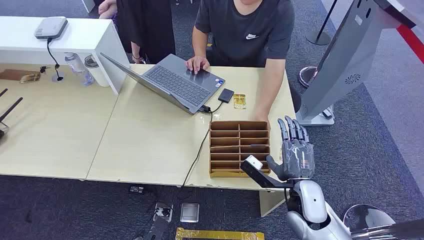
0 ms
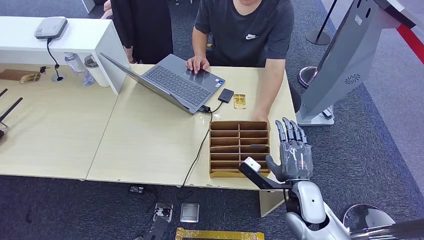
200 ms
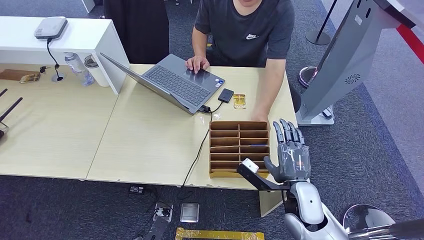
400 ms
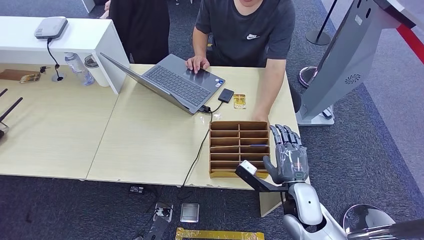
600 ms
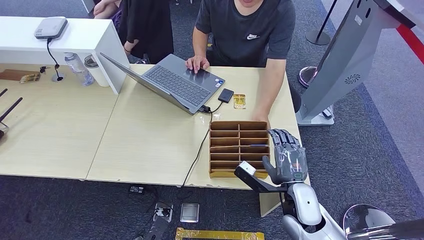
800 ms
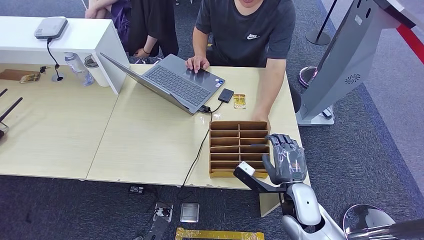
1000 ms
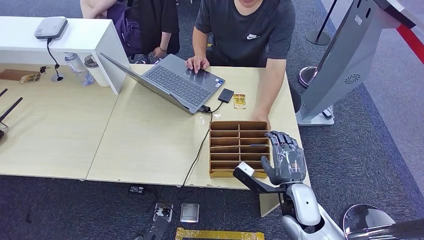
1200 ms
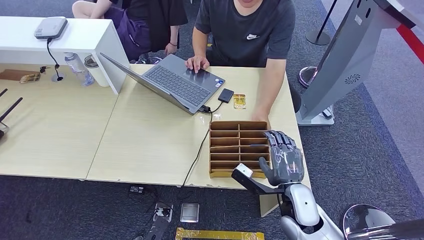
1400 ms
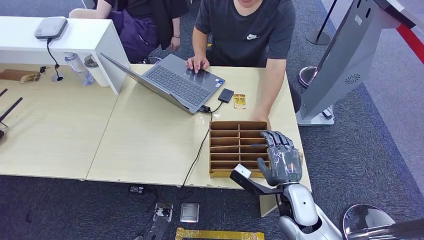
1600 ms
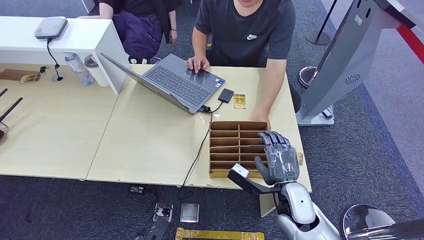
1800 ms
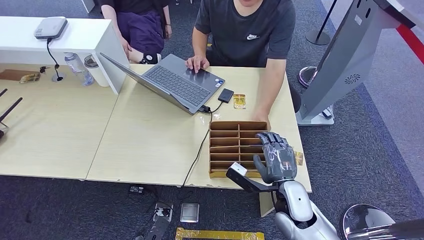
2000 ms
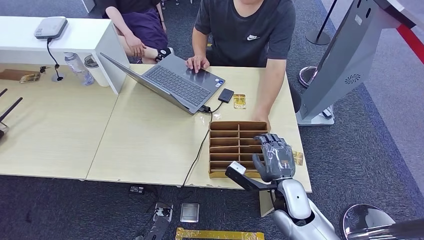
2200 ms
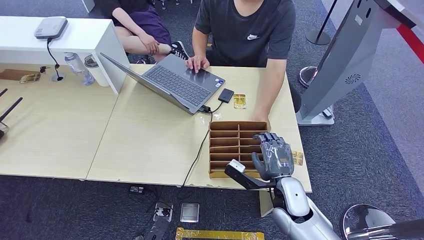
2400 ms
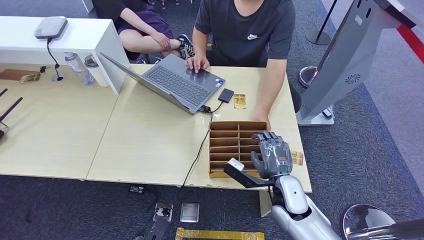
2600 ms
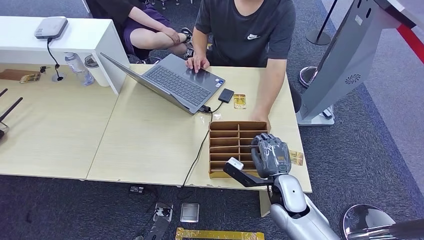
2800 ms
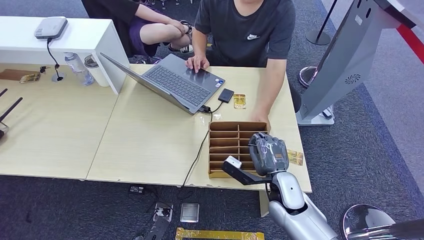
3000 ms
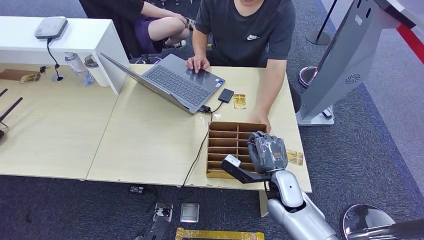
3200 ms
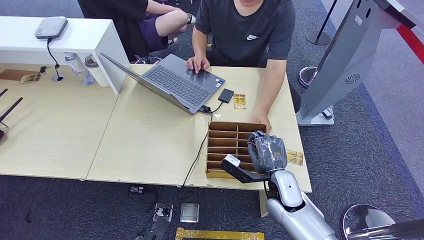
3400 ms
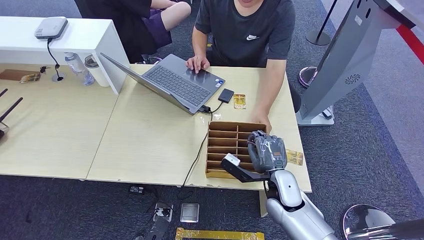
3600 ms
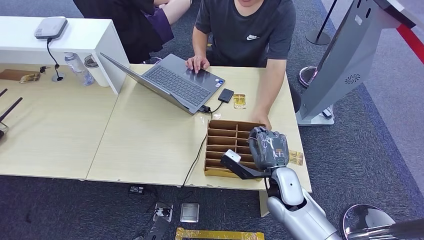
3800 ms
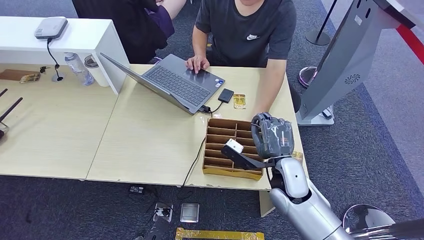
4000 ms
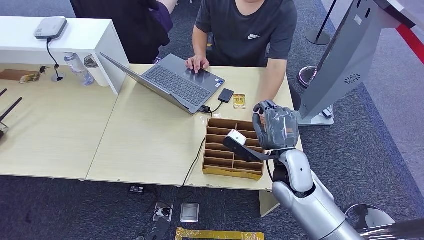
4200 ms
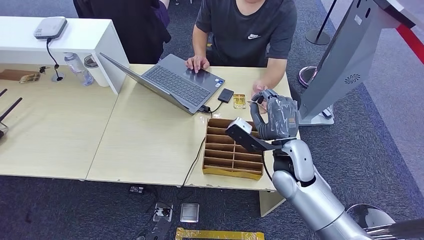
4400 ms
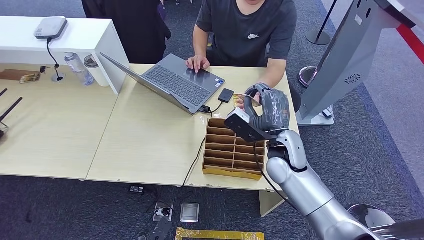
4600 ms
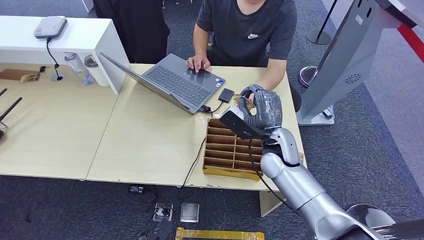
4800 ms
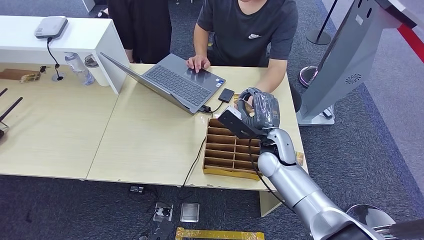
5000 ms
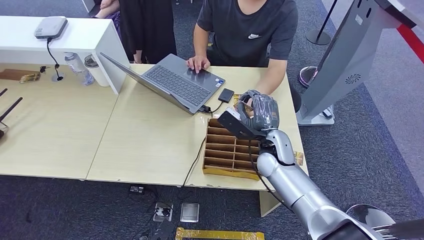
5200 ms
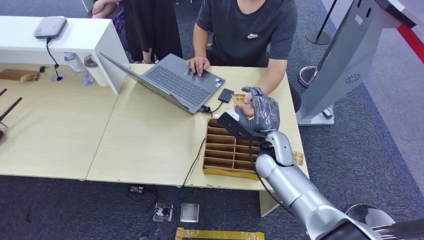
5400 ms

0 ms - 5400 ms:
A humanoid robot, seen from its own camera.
Step, 0 ms - 3800 ms: Pick up the room card from the card holder.
Step, 4000 ms - 5400 ms: Hand the room card to the target.
1400 ms - 2800 ms: There are only small adjustments of the hands.
2800 ms - 4000 ms: The right hand heads upward, covering about 5 cm.
4000 ms - 5400 ms: The right hand shifts roughly 5 cm forward.

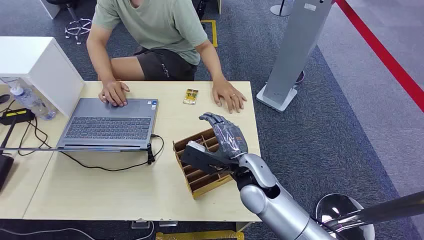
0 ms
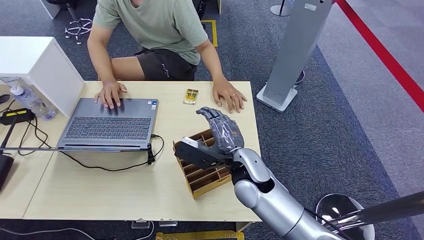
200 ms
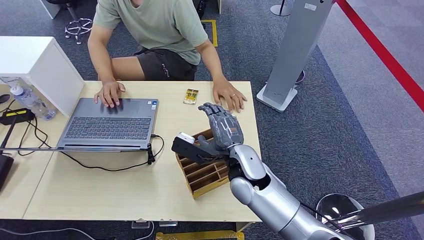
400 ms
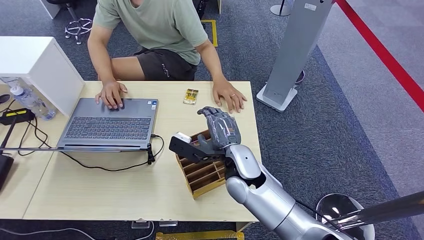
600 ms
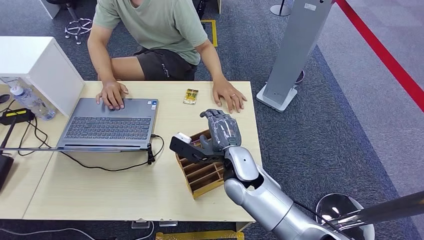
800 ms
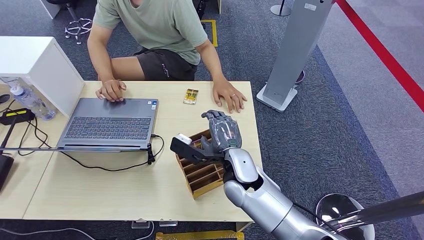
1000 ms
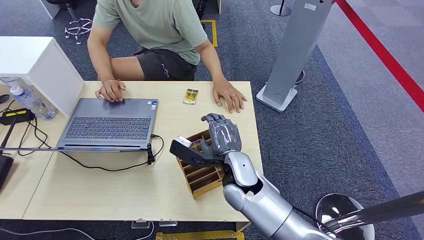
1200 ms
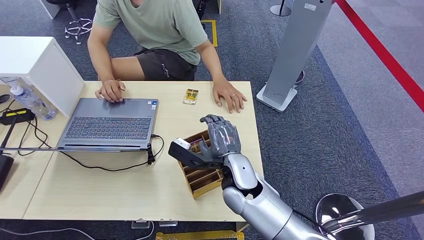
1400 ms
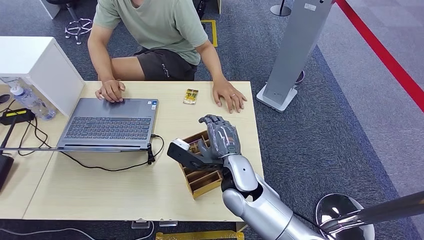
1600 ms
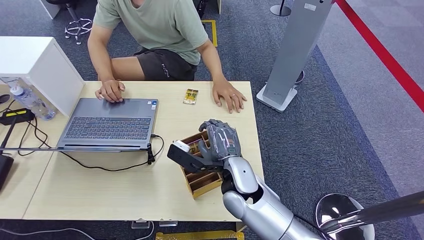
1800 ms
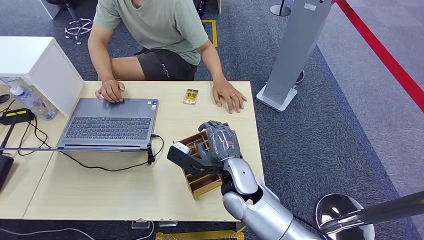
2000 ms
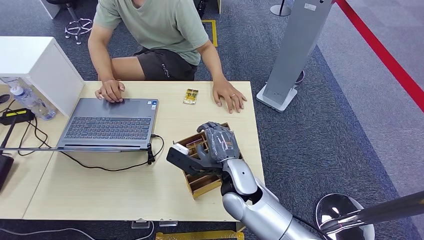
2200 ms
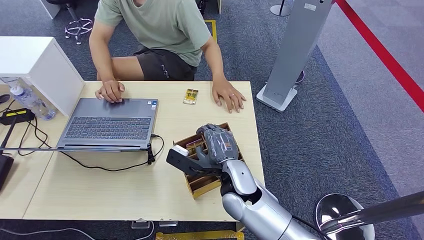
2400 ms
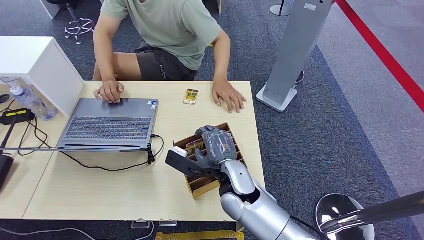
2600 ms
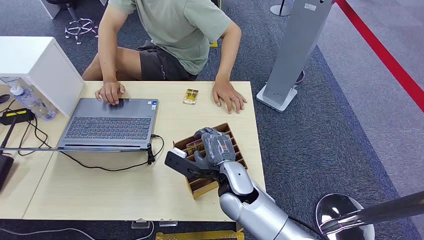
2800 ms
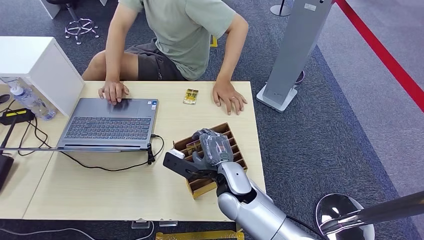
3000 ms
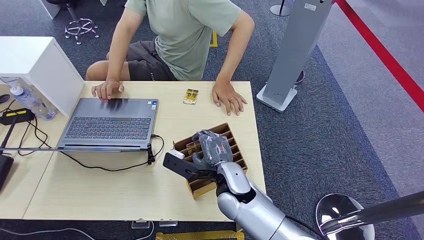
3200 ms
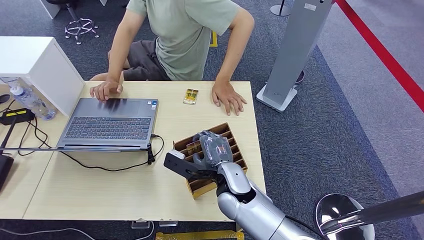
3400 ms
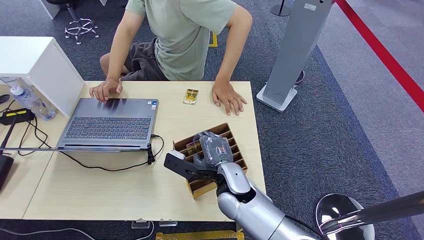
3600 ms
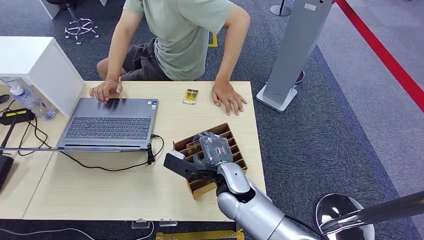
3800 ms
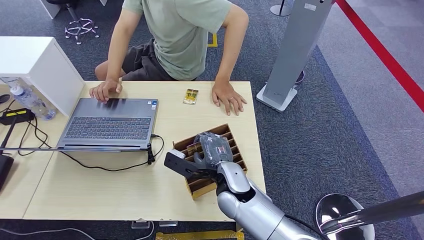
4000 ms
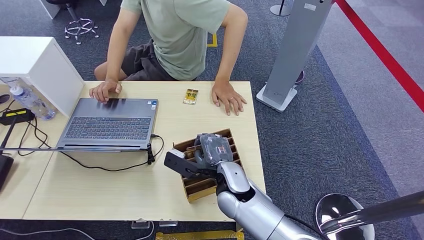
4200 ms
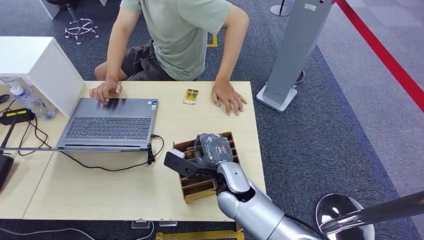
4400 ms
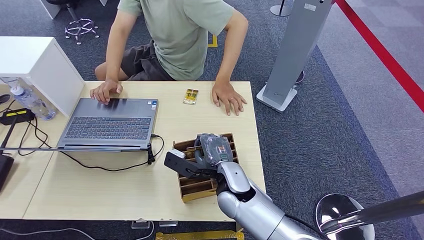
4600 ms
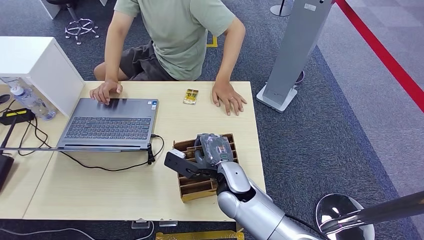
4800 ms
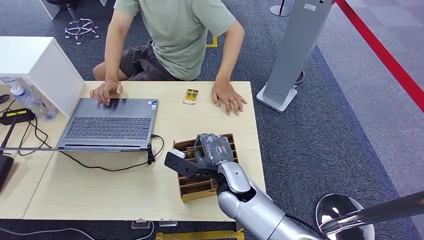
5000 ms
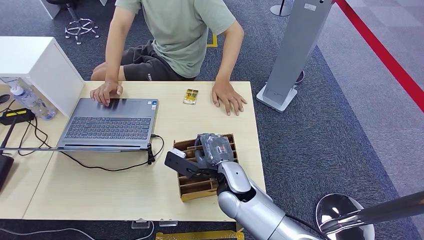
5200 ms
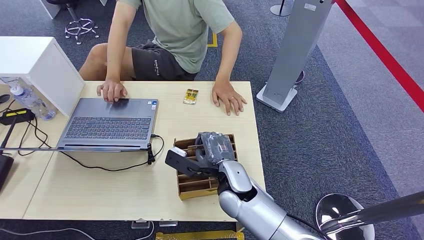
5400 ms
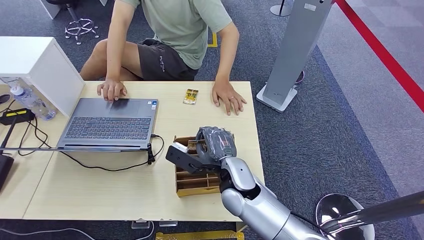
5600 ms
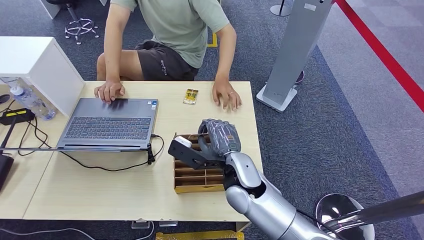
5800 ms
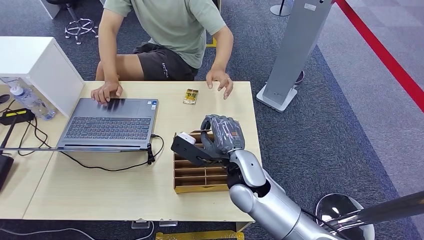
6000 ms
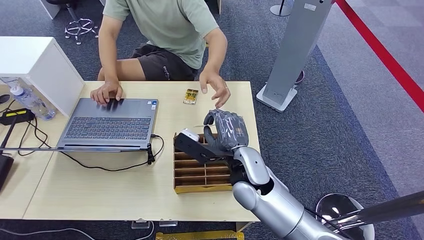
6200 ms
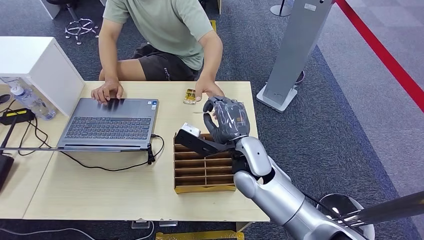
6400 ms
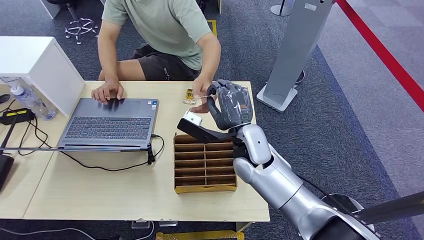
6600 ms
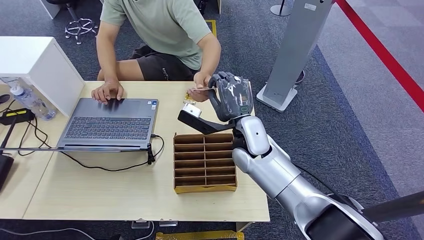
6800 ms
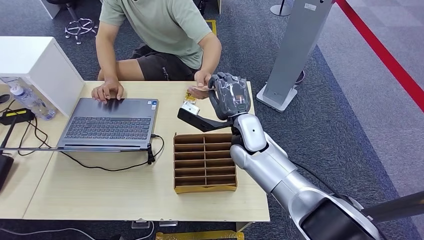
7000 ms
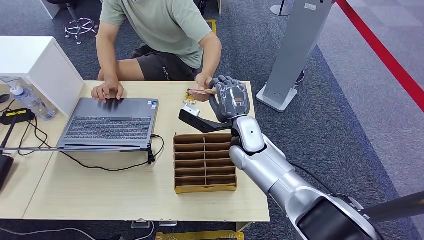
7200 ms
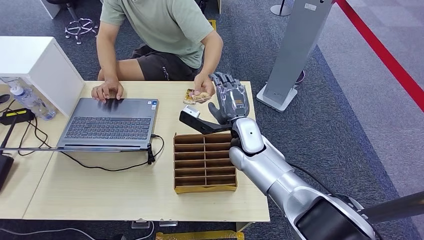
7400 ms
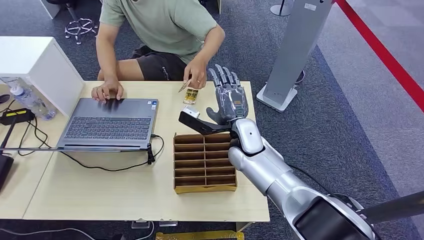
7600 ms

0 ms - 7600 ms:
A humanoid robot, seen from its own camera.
Step, 0 ms - 6400 ms: Pick up the room card from the card holder.
Step, 6600 ms - 7400 ms: Hand the room card to the target.
1600 ms - 3000 ms: There are only small adjustments of the hands.
3000 ms - 4600 ms: Both hands stay about where they are.
4600 ms - 6000 ms: The right hand moves upward, approximately 5 cm.
6000 ms - 7600 ms: The right hand moves forward, about 10 cm.

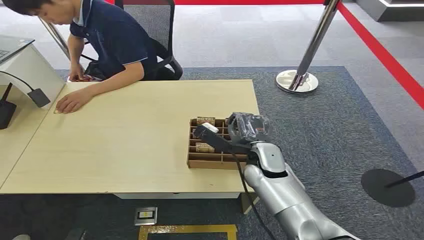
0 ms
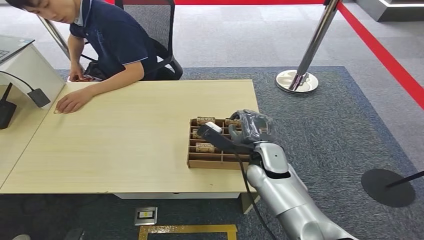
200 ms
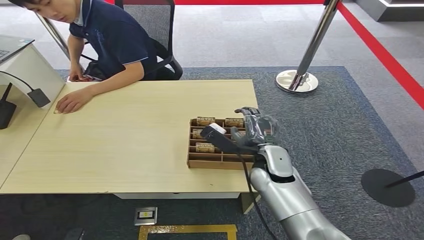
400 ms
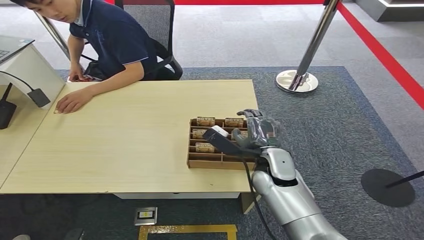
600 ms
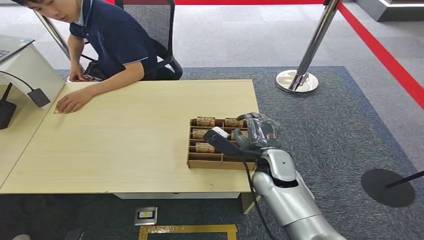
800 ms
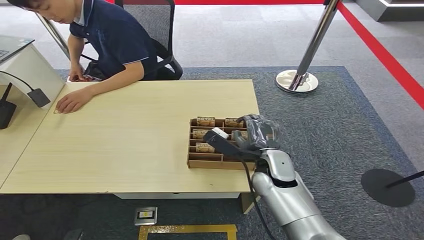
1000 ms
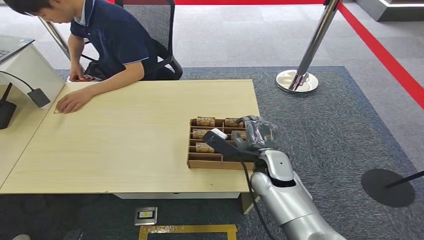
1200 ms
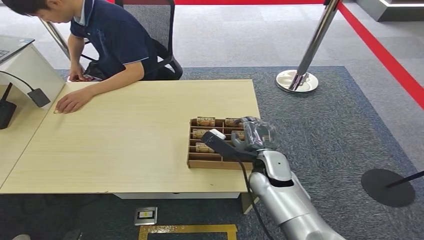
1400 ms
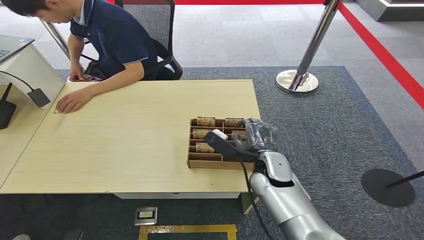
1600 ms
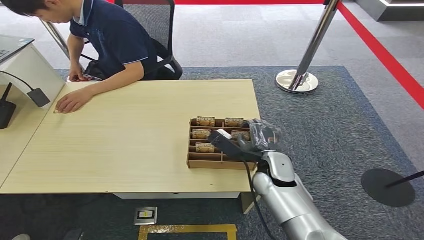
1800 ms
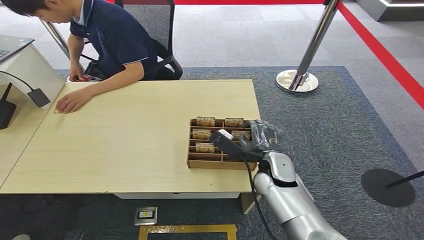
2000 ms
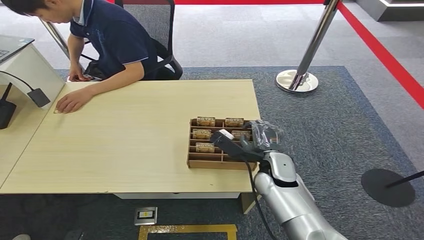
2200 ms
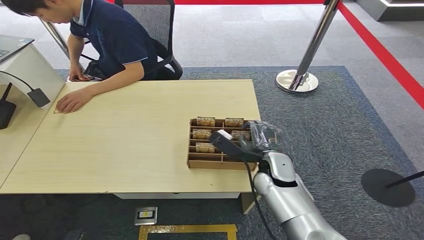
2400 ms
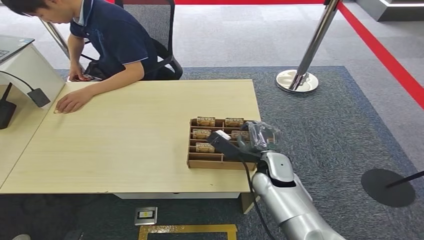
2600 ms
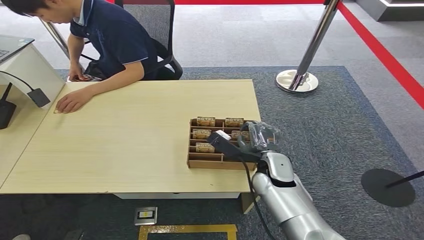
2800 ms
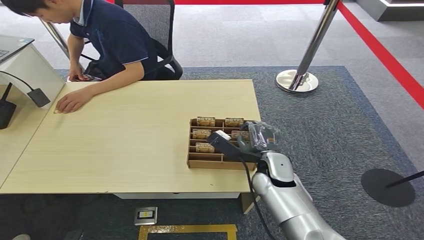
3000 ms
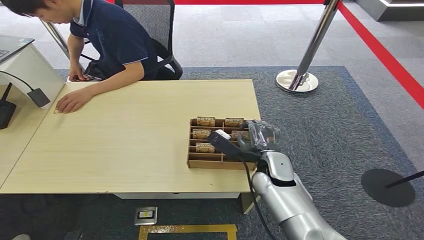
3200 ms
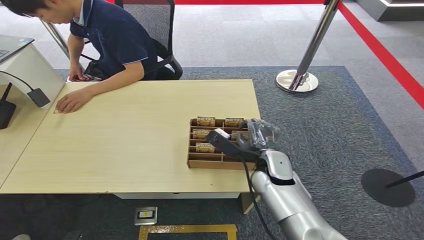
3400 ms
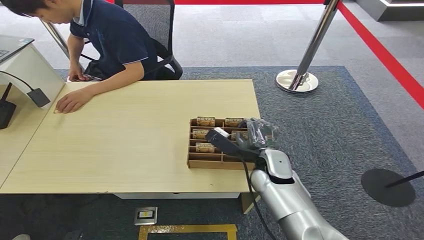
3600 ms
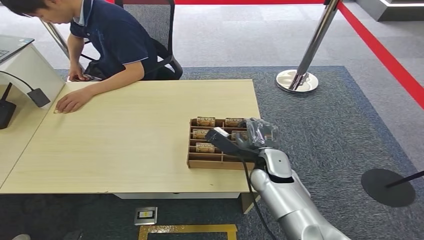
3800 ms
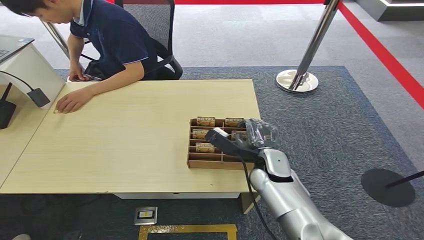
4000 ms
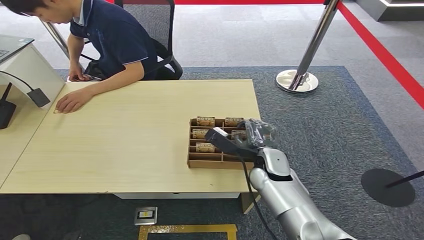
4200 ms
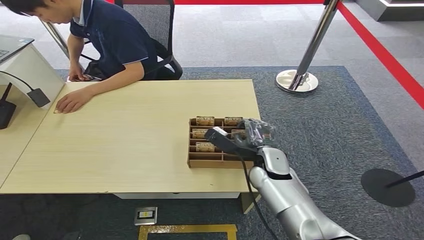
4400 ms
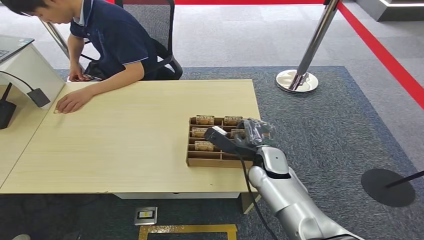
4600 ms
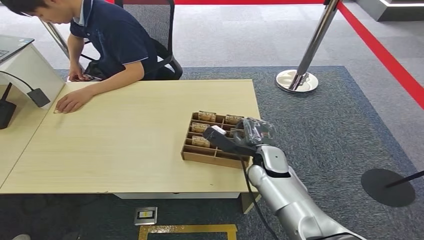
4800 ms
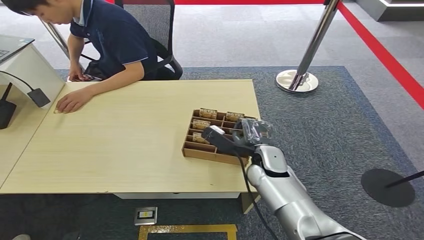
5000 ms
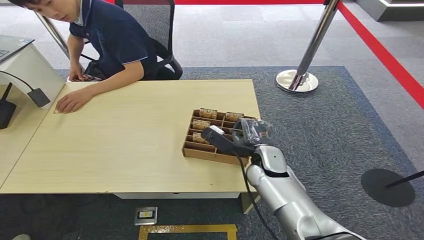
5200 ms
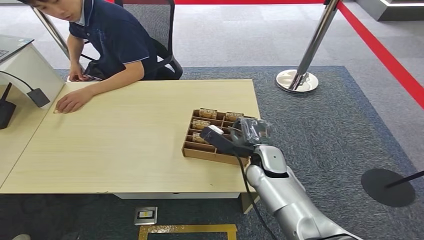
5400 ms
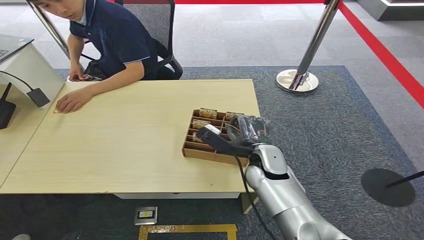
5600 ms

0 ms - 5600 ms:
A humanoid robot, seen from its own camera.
1400 ms - 2800 ms: The hands make only small movements.
2800 ms - 4200 ms: Both hands stay about where they are.
4200 ms - 5600 ms: The hands make only small movements.
